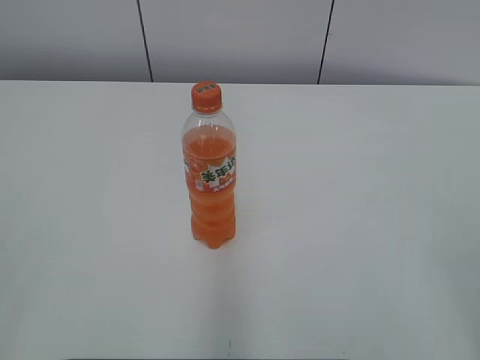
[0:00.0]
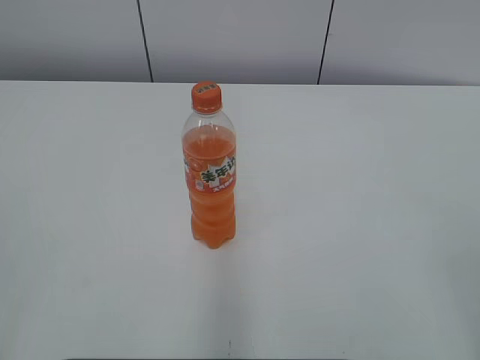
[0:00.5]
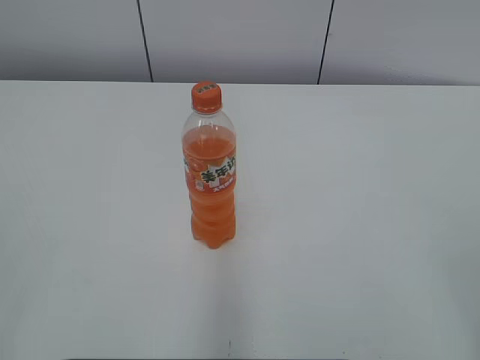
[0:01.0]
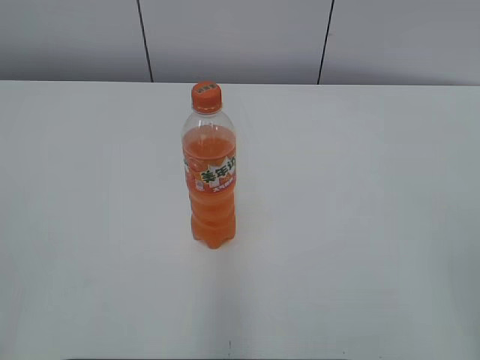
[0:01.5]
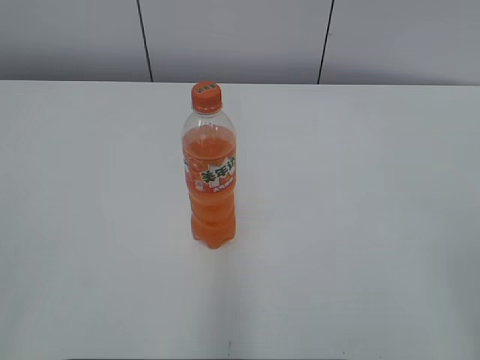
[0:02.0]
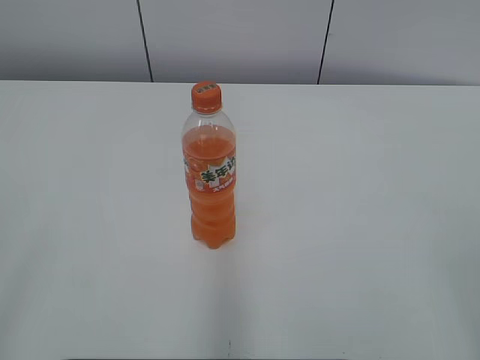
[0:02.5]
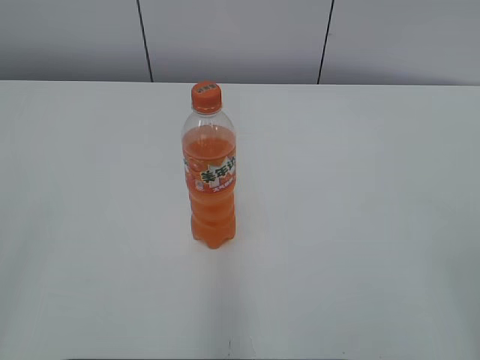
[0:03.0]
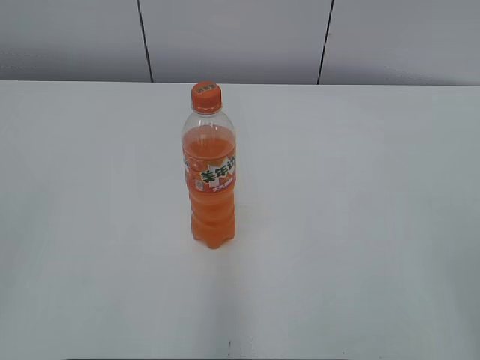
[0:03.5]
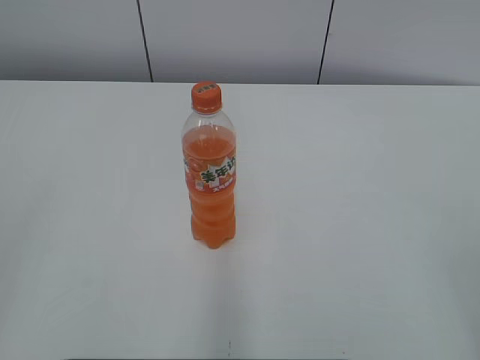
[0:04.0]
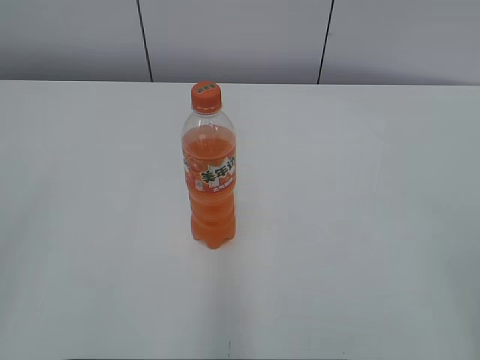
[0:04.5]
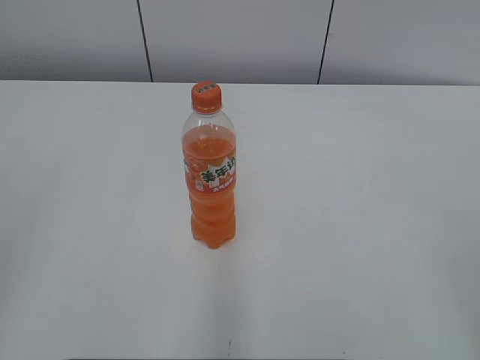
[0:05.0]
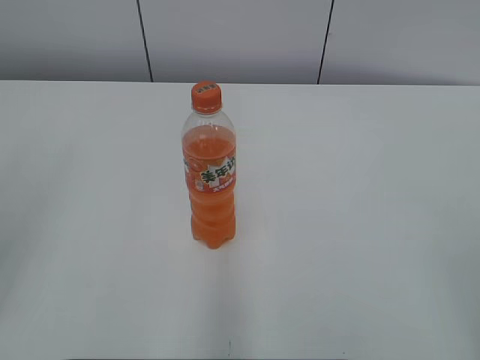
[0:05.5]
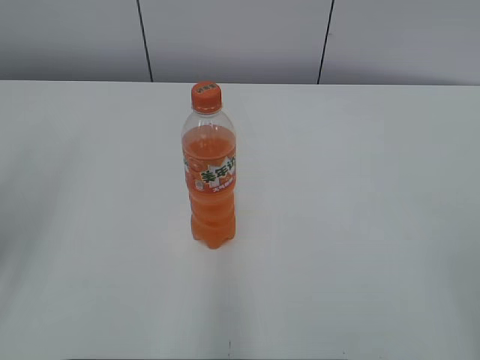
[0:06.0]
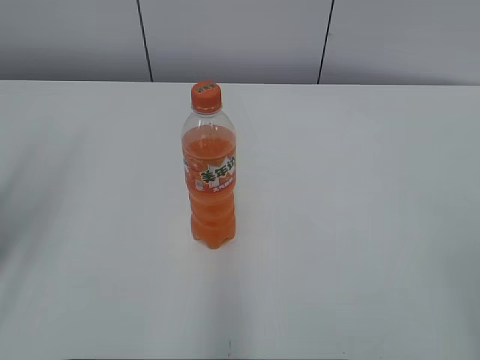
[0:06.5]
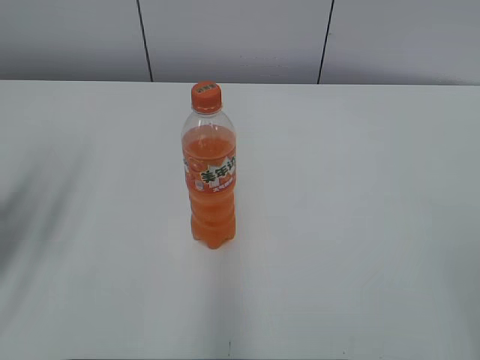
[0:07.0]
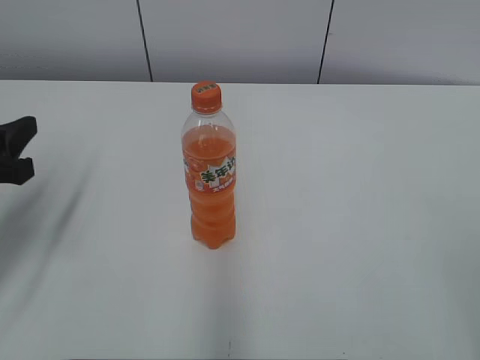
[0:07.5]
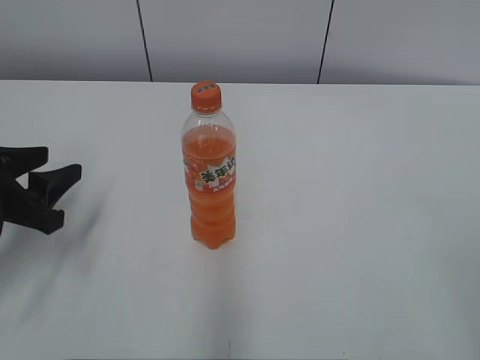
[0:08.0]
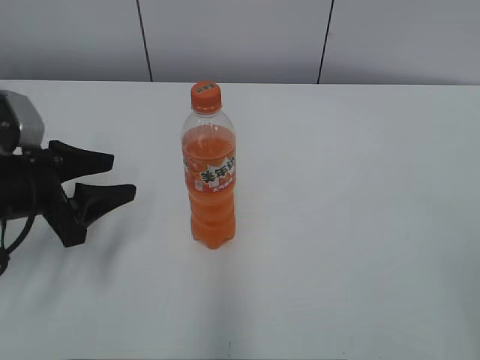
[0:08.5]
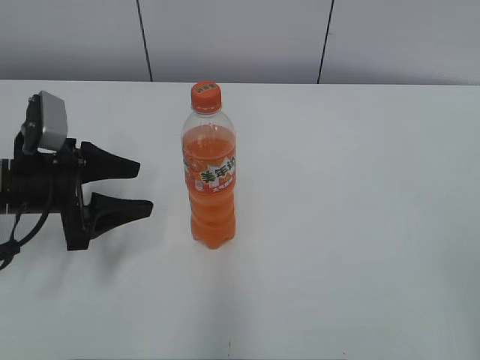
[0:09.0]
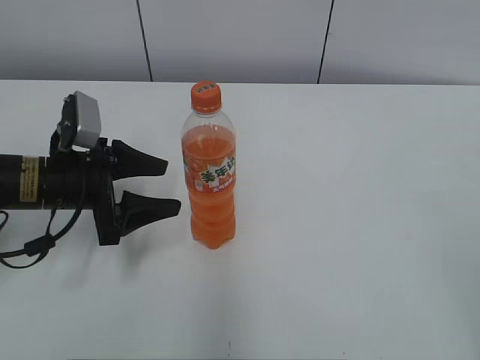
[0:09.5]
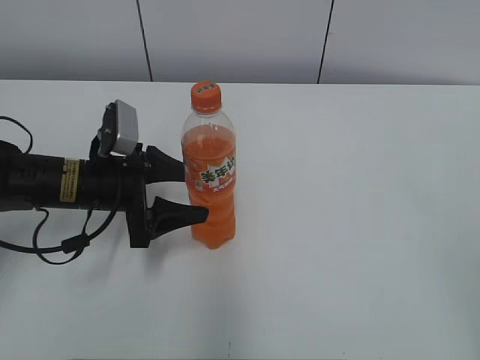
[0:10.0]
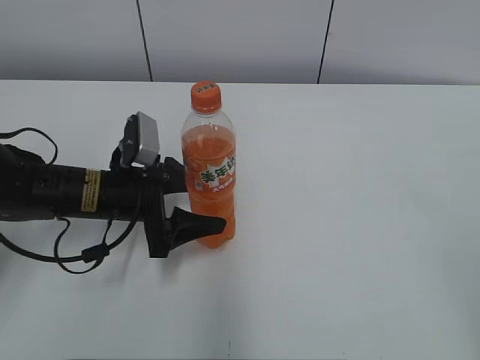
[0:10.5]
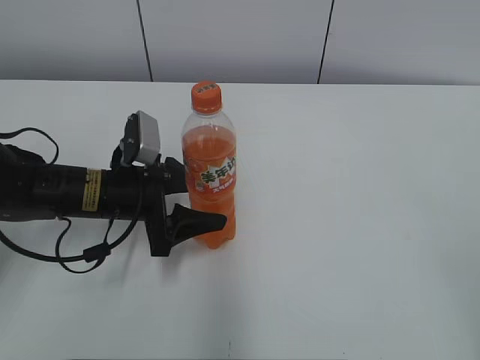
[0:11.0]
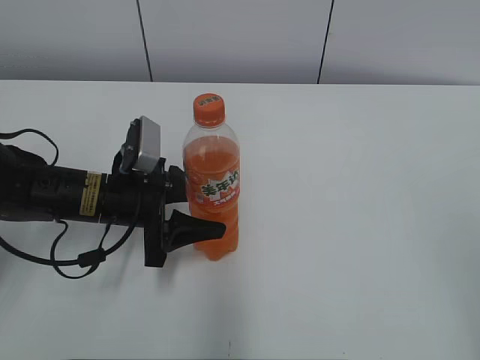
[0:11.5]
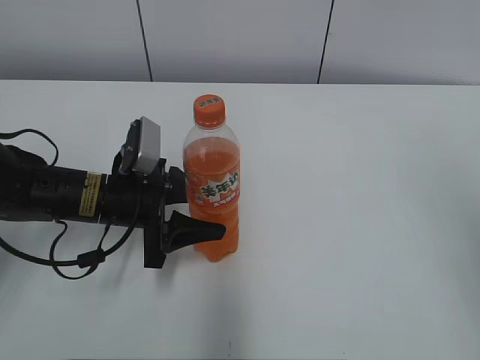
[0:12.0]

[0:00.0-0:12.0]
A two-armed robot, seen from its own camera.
Step, 0:00.0 to 0:11.0: Grab the Mirinda with the left hand.
0:06.0 to 0:08.0: The left gripper is displaced downward and forward by roughly 15 cm.
0:08.0 to 0:10.0: The left gripper shifts about 10 cm to the right and forward, and opens.
0:10.0 to 0:12.0: The left gripper closes its fingers. The right gripper moves forward and upward, approximately 15 cm.

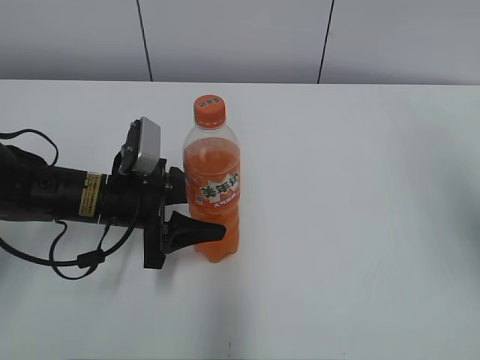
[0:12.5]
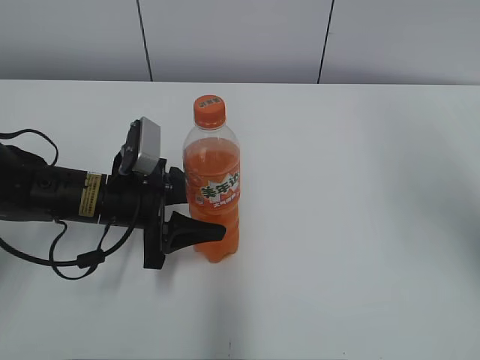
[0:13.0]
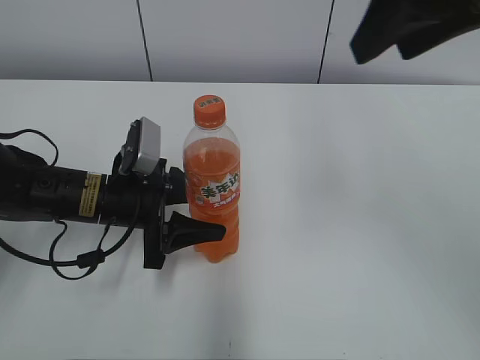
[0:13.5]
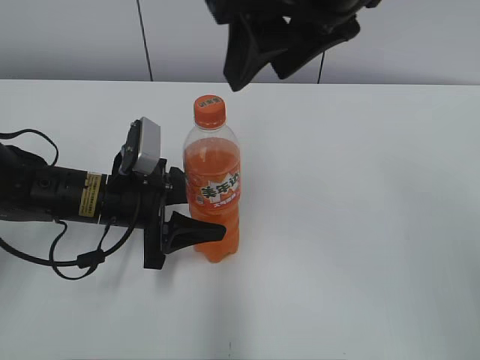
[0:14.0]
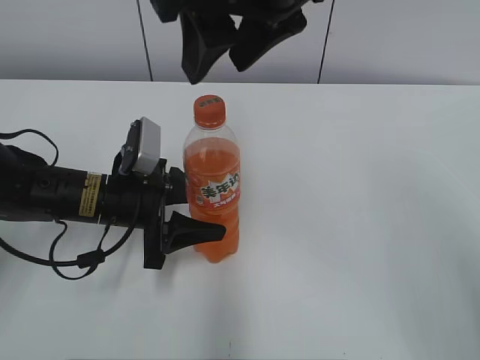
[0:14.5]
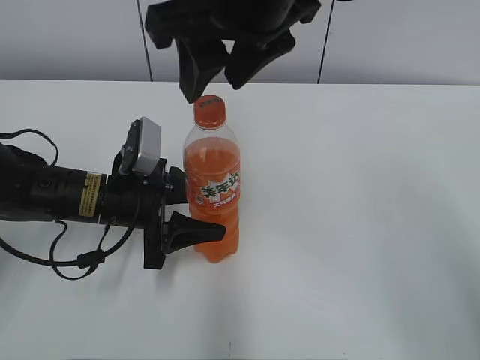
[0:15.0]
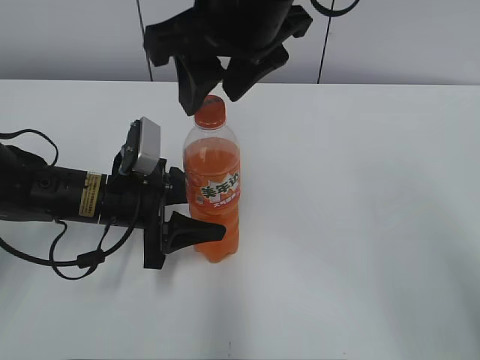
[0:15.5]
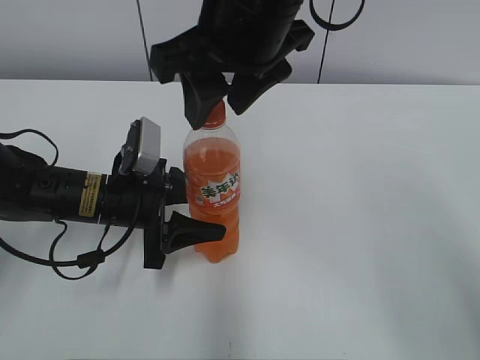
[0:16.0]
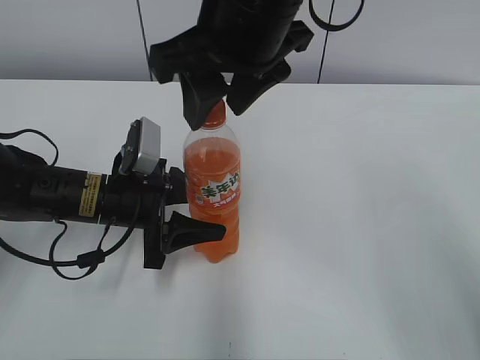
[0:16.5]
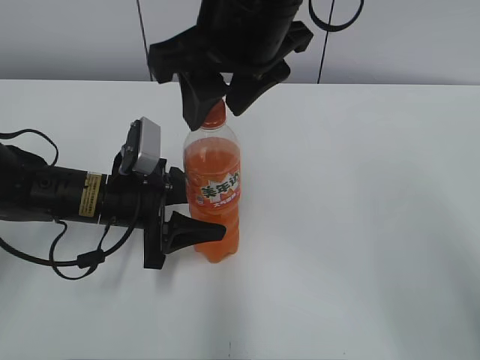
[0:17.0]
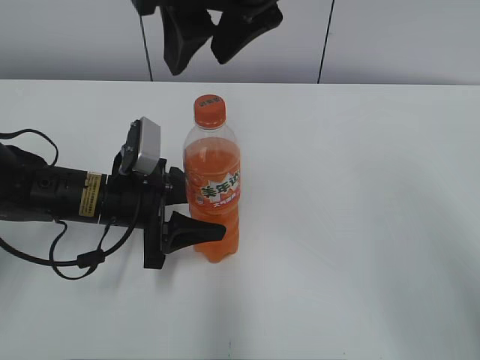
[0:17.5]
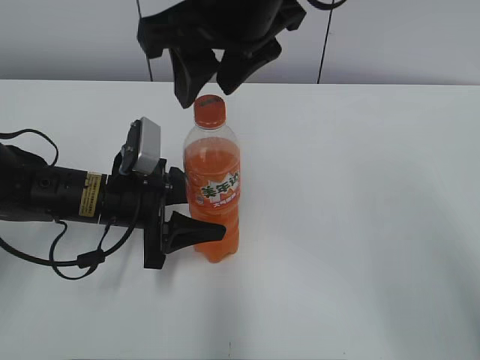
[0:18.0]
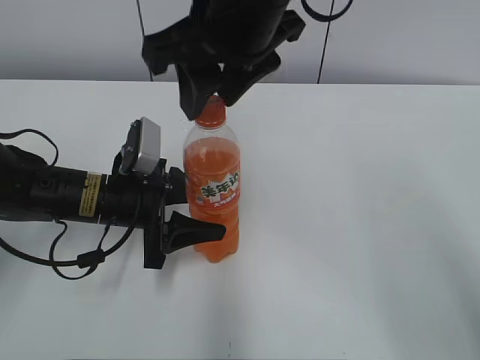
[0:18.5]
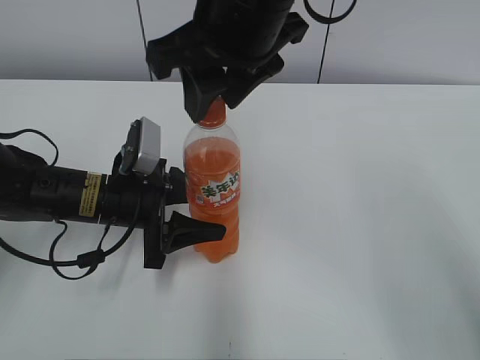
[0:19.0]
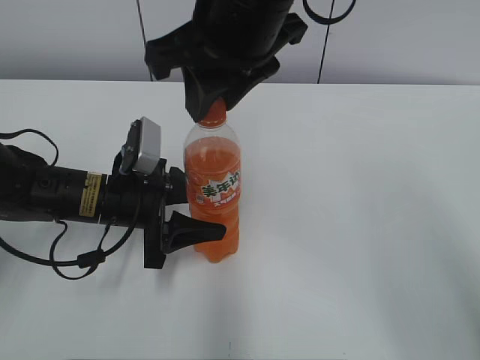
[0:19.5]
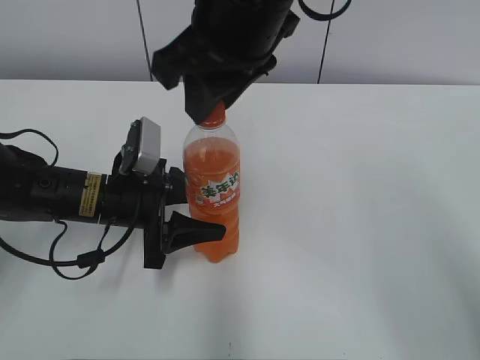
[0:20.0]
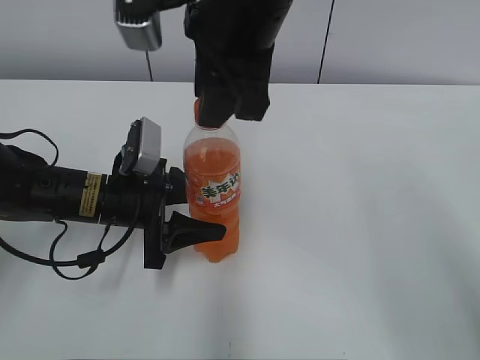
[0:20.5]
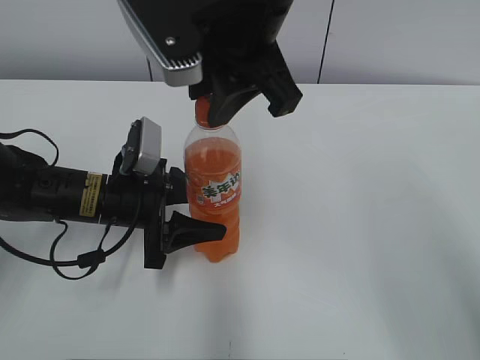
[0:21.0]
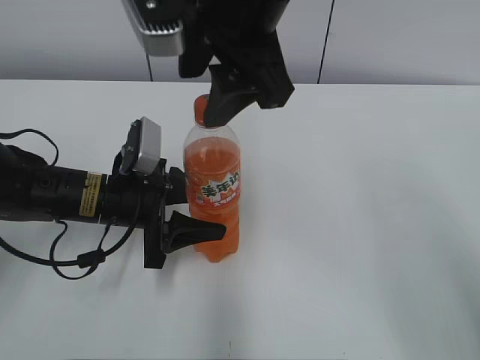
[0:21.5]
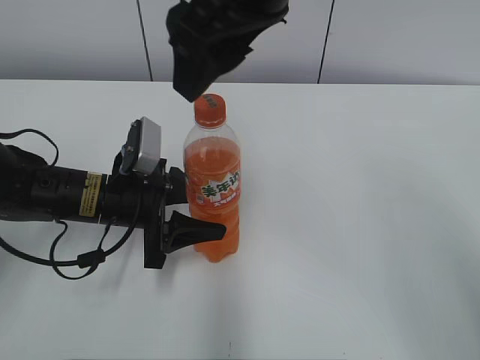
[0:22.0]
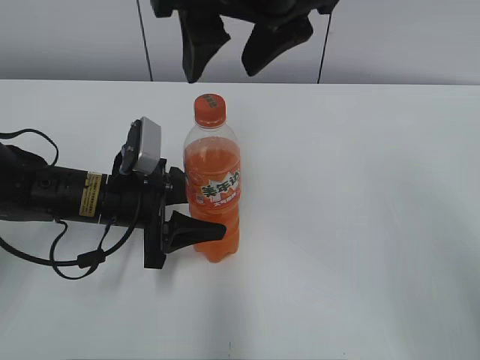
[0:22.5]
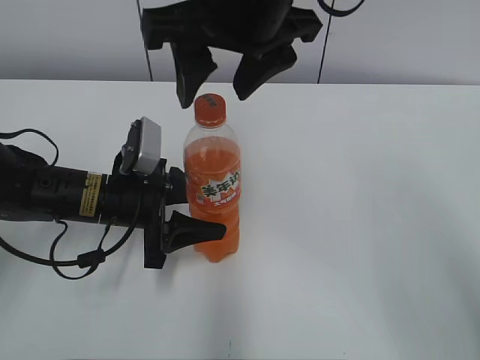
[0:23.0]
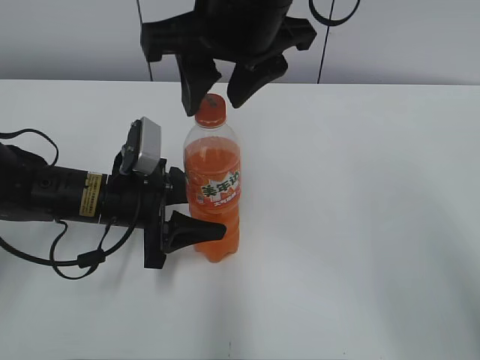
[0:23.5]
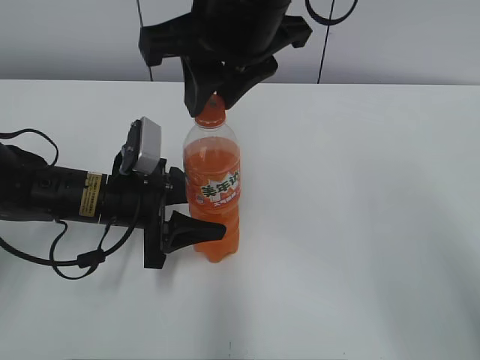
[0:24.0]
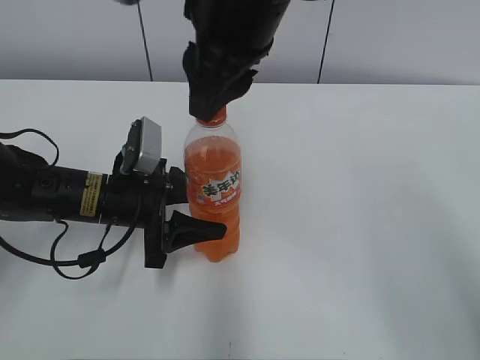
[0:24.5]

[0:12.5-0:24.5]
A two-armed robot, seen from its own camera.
0:12.5 to 0:14.5: The right gripper travels to the left by approximately 25 cm.
0:14.5 to 0:18.5: There are only small adjustments of the grippers.
0:20.5 to 0:22.5: The right gripper opens up.
0:22.5 to 0:24.5: The right gripper closes.

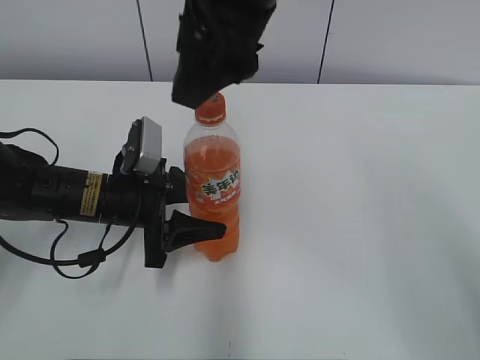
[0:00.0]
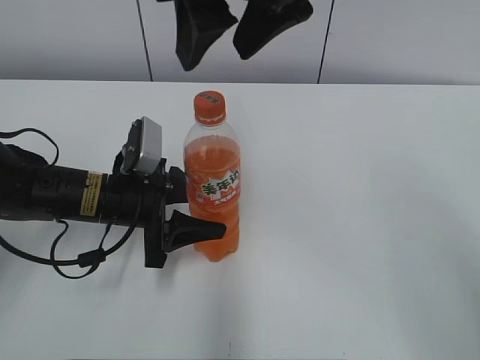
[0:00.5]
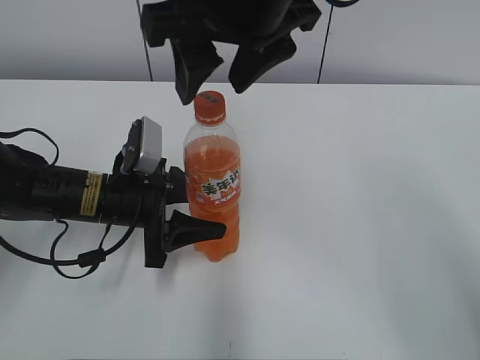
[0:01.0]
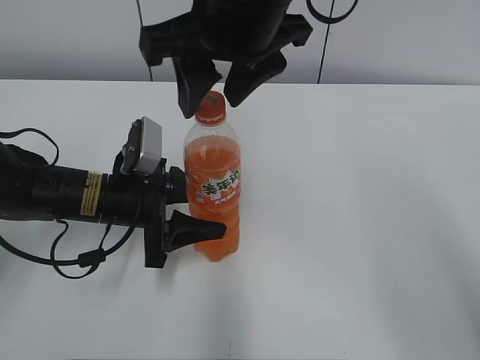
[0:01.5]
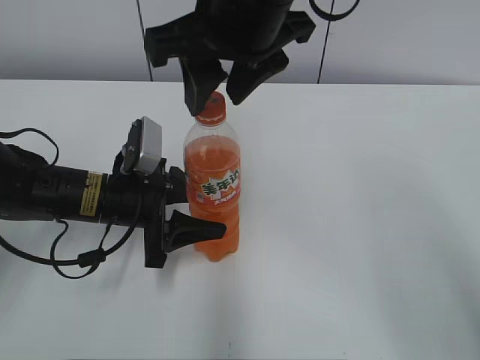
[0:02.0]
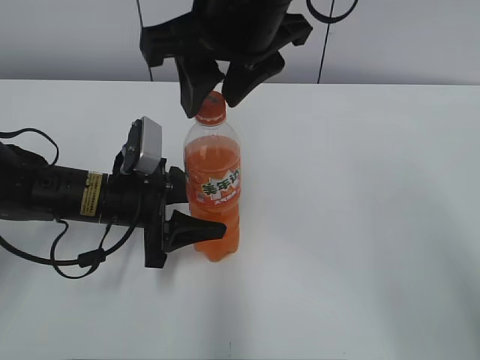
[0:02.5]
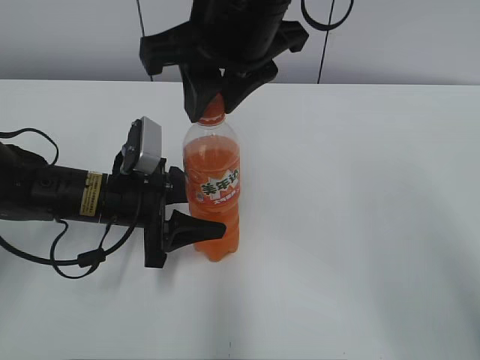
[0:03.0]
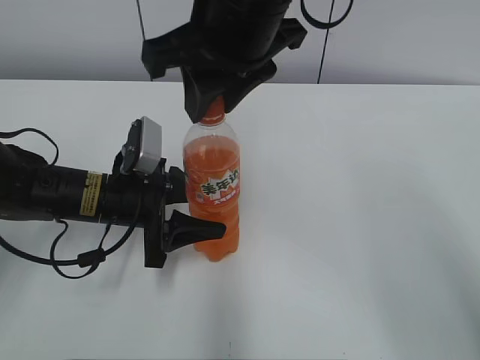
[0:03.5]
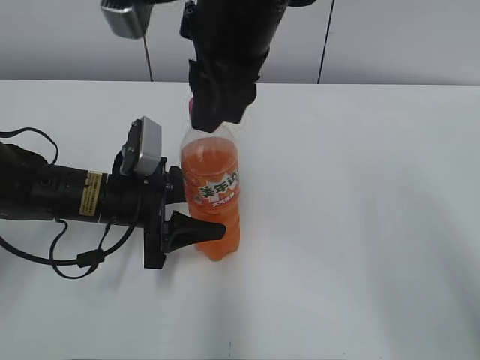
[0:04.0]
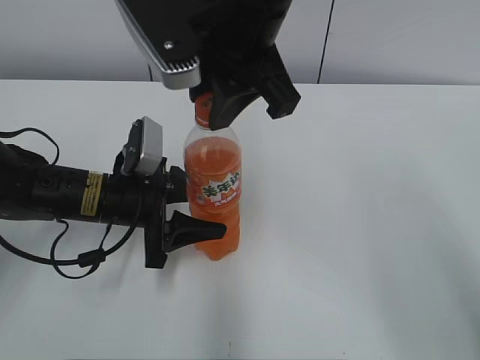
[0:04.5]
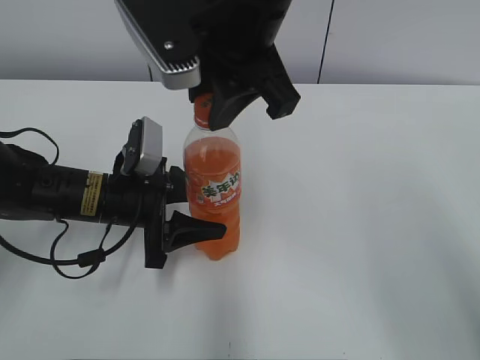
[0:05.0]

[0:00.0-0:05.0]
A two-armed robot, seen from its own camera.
0:02.5 to 0:05.0: The right gripper closes.
